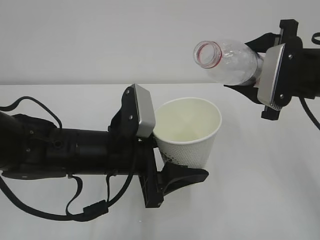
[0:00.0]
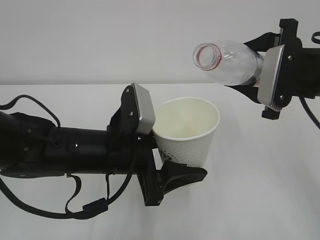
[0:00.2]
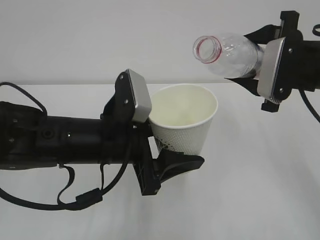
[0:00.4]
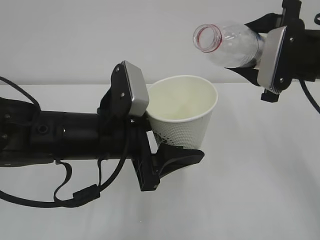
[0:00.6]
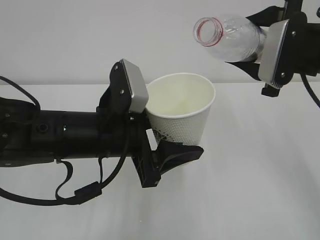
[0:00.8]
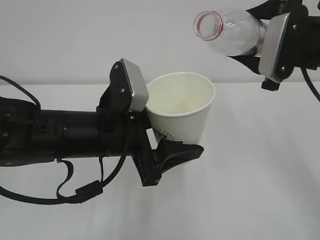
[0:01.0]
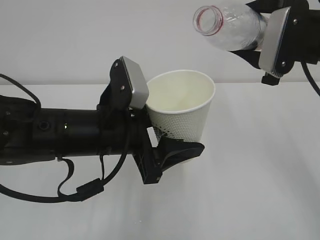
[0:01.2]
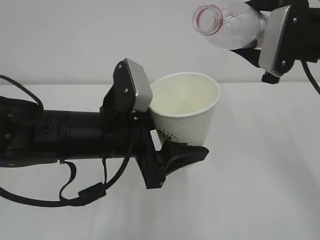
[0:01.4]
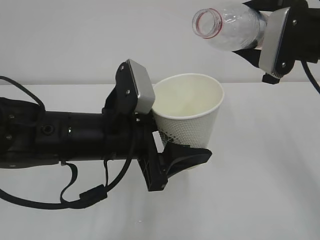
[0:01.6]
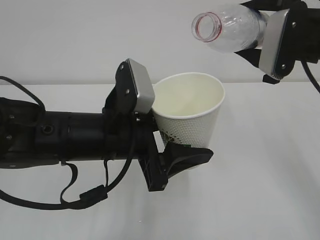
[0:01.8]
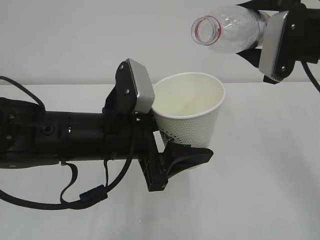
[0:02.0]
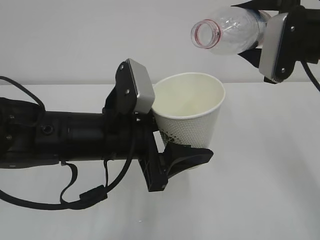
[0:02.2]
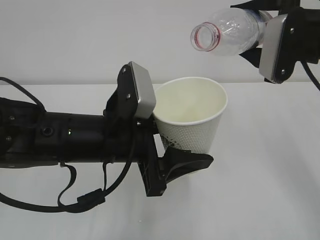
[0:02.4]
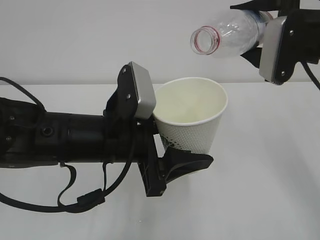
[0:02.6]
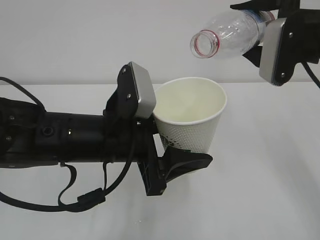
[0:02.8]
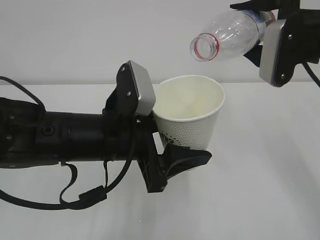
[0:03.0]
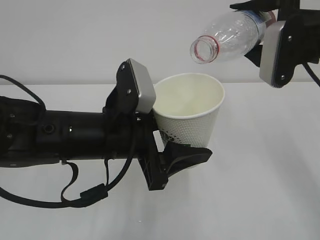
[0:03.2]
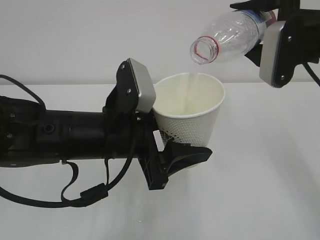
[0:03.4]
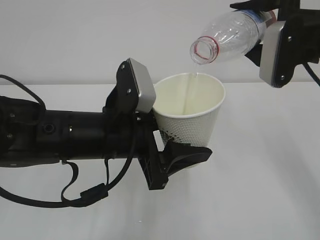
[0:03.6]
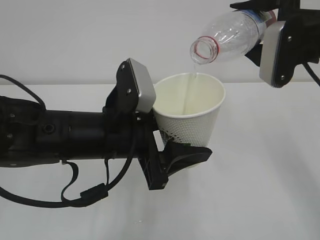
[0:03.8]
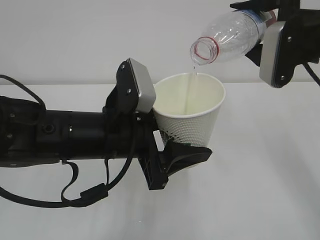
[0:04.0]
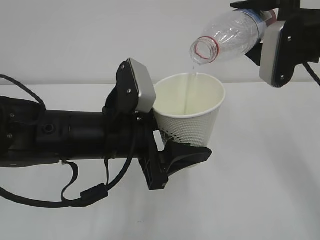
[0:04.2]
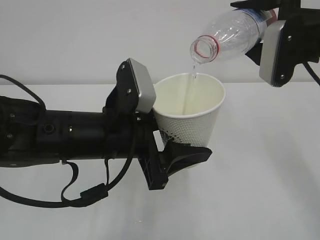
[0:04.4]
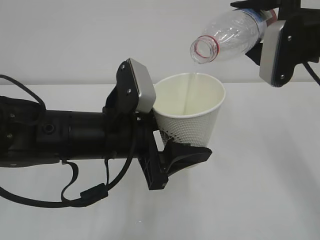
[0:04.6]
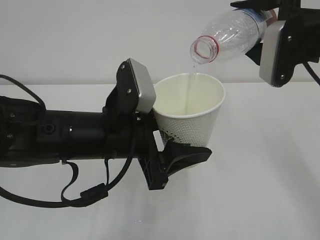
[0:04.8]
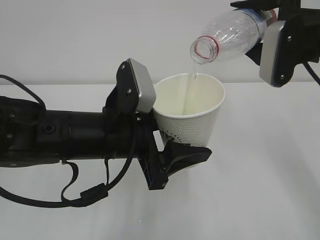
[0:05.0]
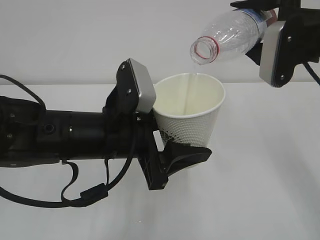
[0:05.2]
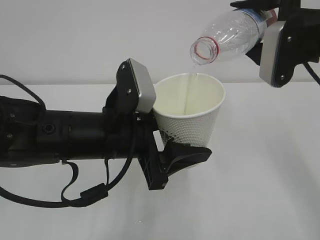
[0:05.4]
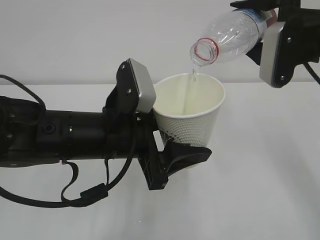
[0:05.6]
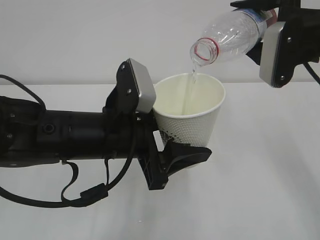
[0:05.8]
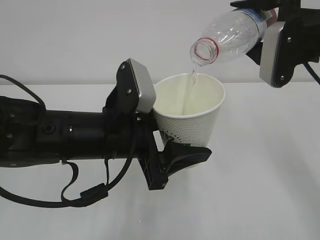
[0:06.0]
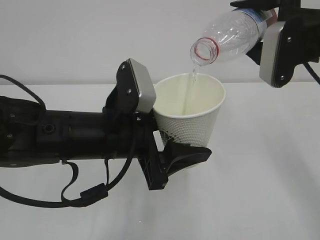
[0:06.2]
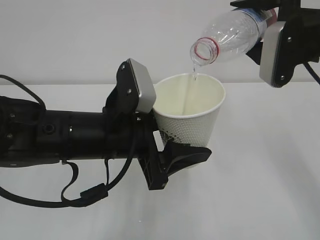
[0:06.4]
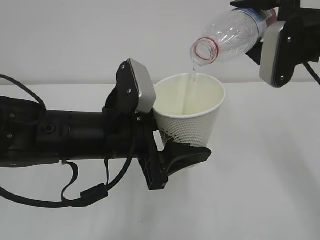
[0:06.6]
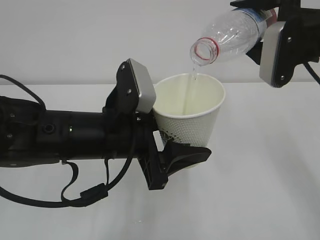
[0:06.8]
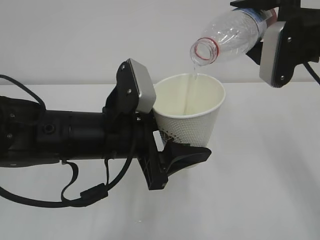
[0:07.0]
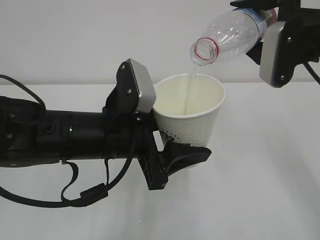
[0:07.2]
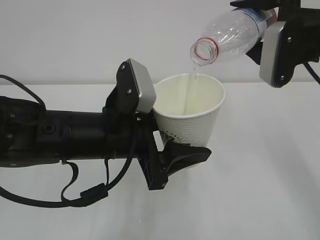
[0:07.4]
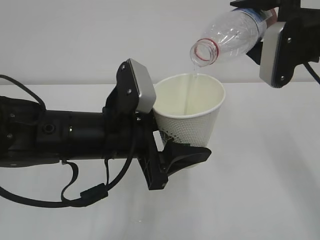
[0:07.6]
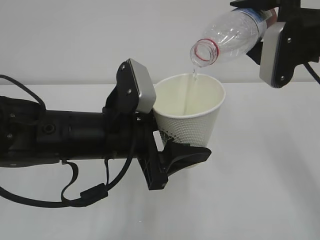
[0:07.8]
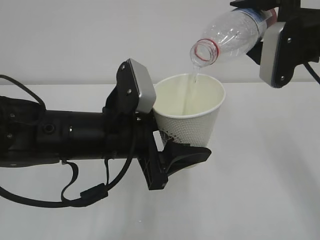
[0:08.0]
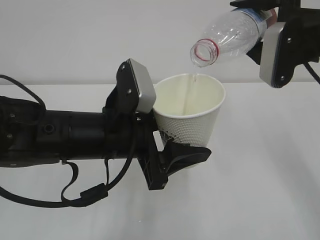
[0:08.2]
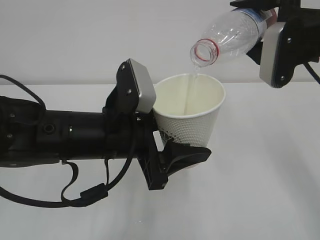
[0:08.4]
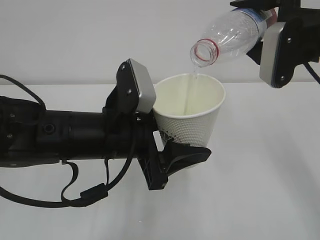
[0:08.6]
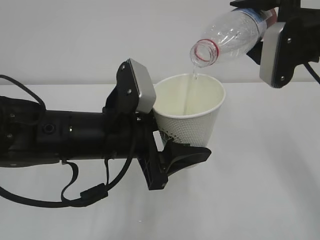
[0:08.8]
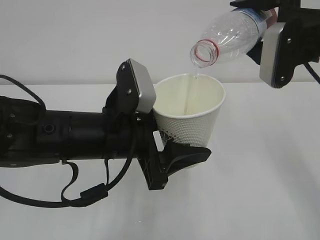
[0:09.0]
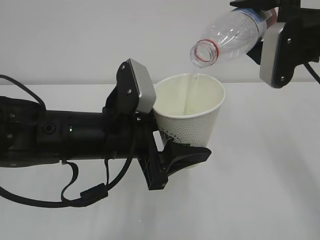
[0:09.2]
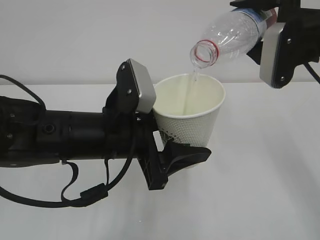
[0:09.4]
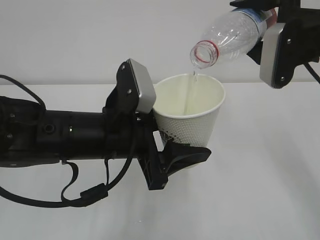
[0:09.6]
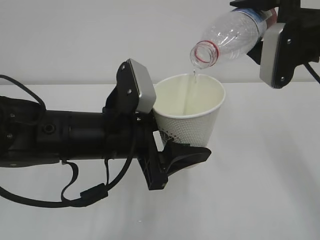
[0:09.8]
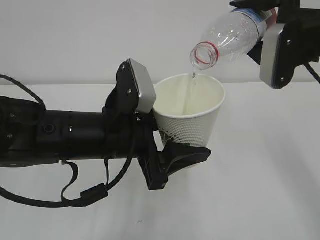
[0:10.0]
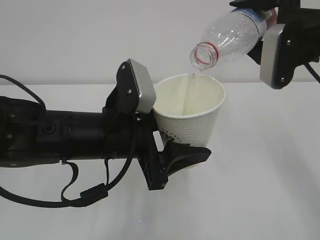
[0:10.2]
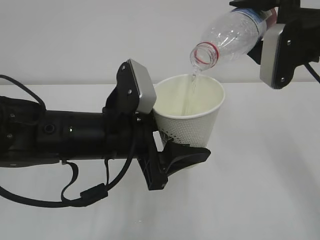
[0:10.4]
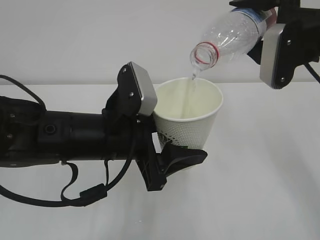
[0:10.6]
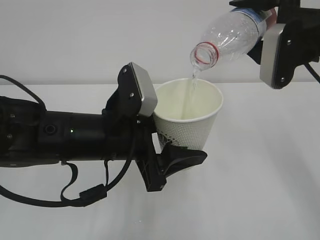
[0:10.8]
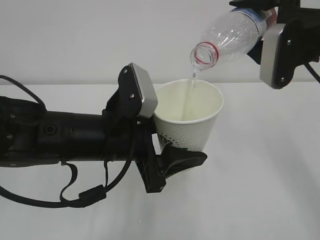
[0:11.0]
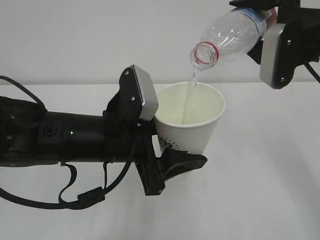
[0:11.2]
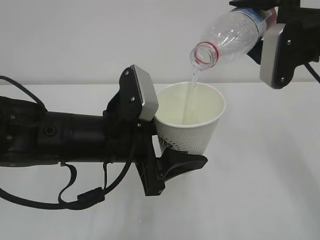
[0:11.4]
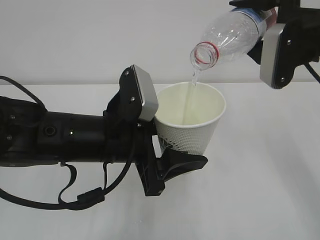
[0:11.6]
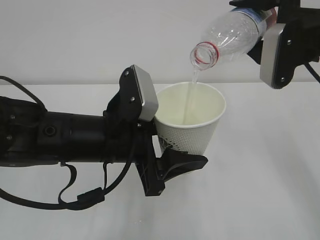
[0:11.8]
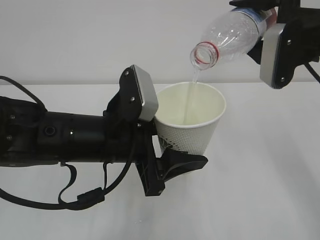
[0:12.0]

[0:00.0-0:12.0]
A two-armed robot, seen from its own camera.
0:00.0 to 0:01.6: The right gripper shifts by some 5 cm.
0:01.6 to 0:03.0: There are only small adjustments of the grippers.
0:03.0 to 0:09.0: The two grippers keep their place.
0:09.0 to 0:12.0: Both grippers stay about where they are.

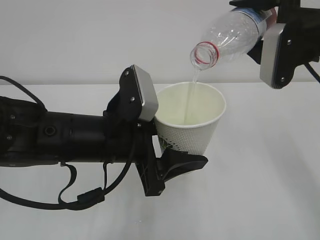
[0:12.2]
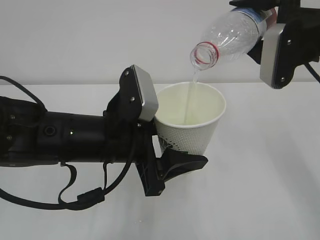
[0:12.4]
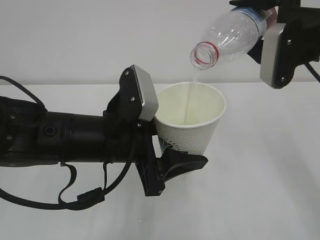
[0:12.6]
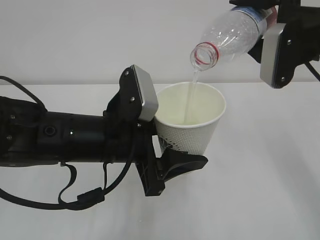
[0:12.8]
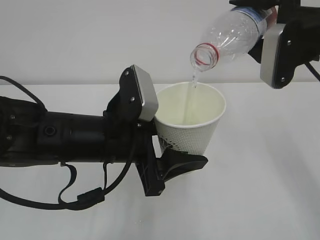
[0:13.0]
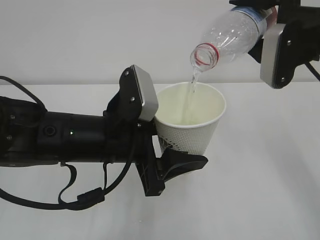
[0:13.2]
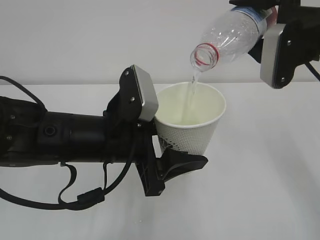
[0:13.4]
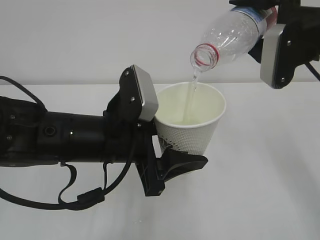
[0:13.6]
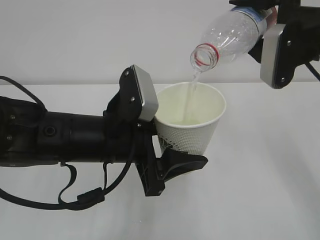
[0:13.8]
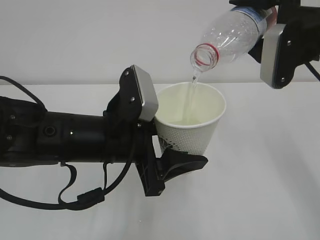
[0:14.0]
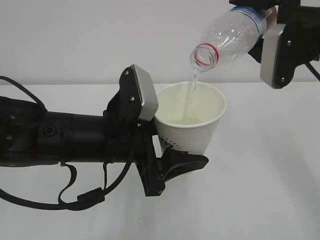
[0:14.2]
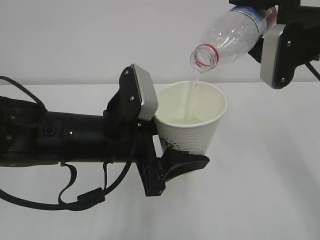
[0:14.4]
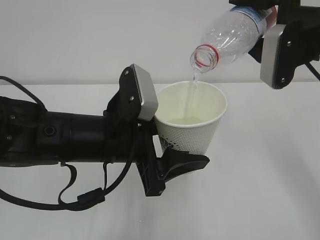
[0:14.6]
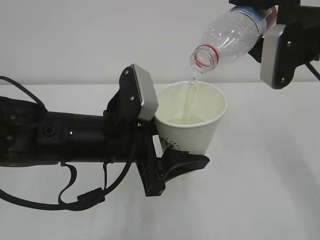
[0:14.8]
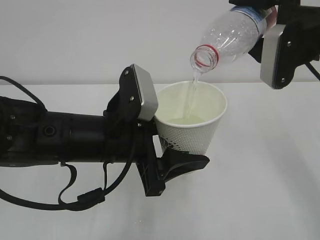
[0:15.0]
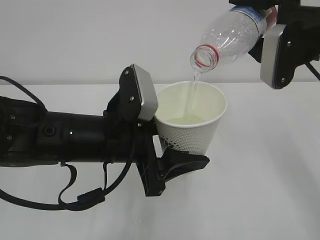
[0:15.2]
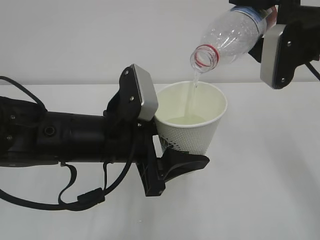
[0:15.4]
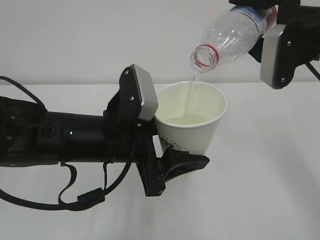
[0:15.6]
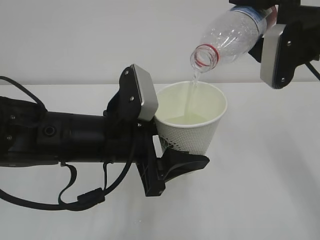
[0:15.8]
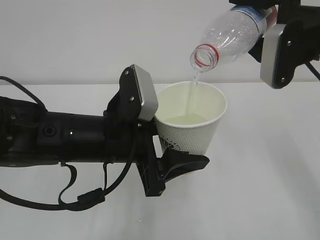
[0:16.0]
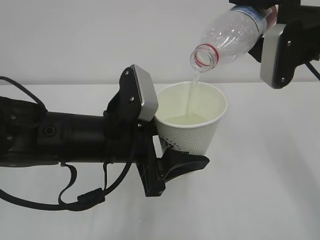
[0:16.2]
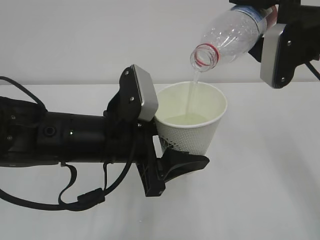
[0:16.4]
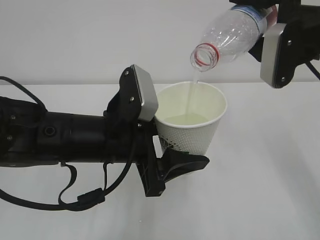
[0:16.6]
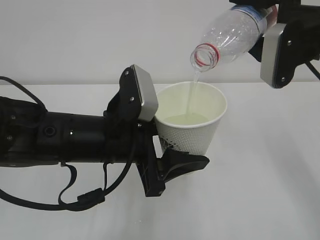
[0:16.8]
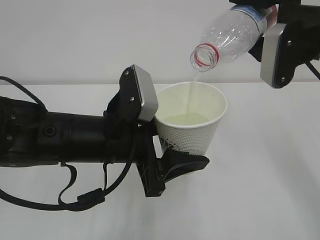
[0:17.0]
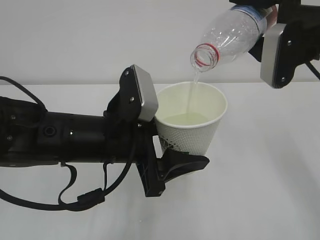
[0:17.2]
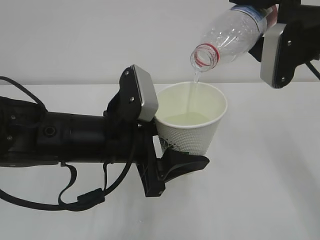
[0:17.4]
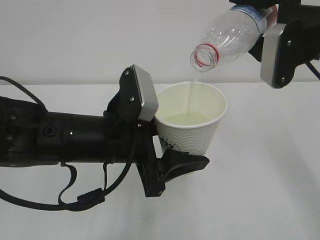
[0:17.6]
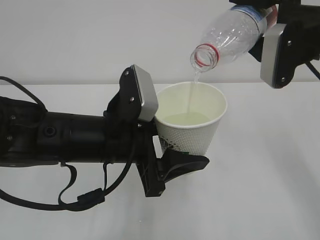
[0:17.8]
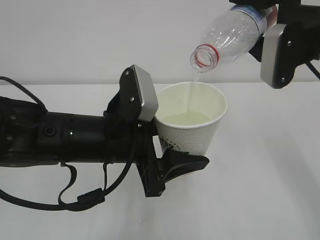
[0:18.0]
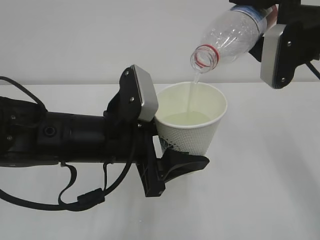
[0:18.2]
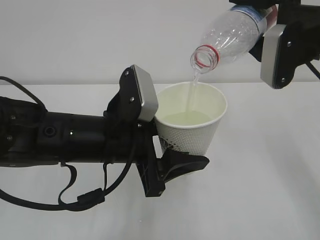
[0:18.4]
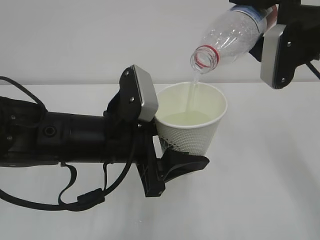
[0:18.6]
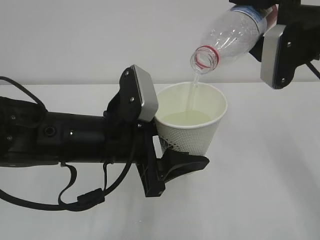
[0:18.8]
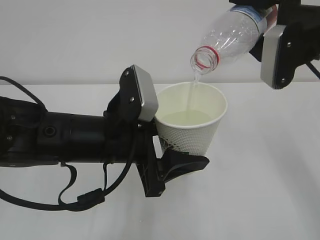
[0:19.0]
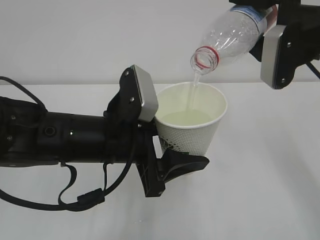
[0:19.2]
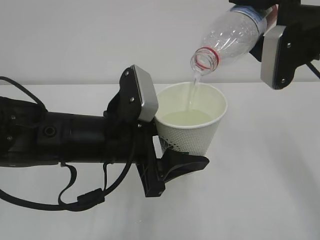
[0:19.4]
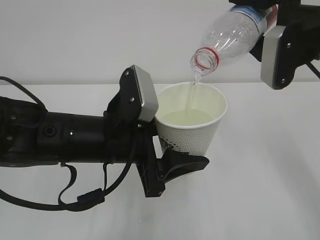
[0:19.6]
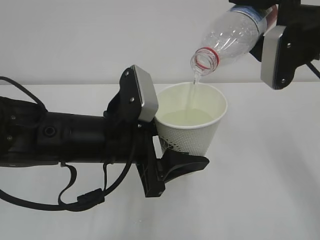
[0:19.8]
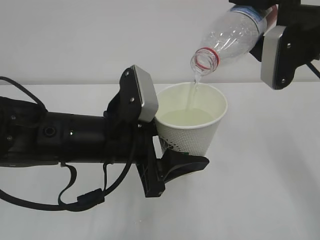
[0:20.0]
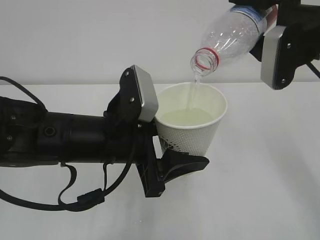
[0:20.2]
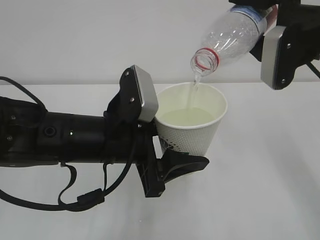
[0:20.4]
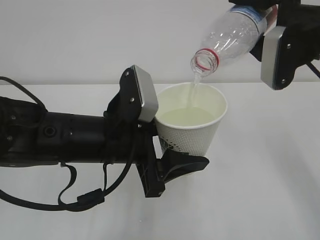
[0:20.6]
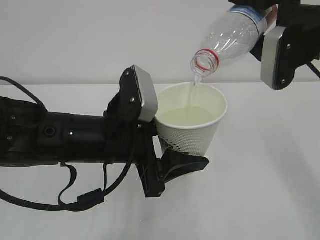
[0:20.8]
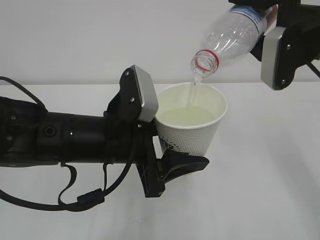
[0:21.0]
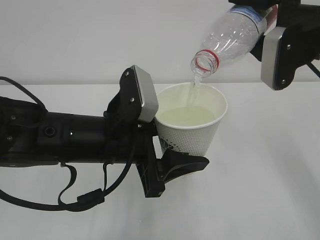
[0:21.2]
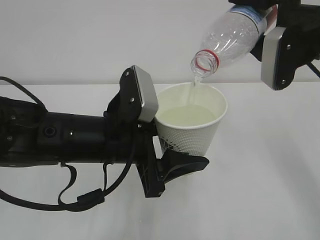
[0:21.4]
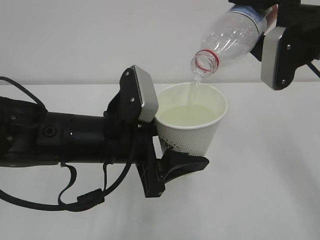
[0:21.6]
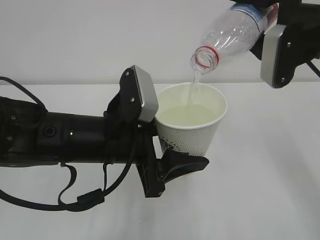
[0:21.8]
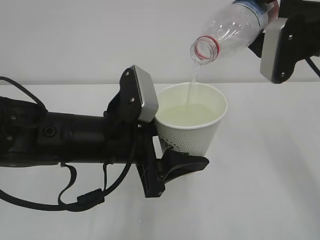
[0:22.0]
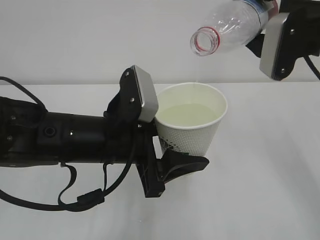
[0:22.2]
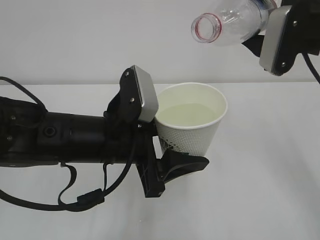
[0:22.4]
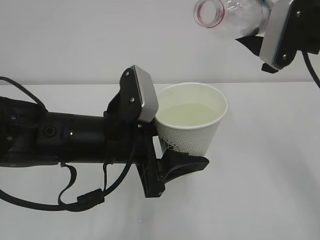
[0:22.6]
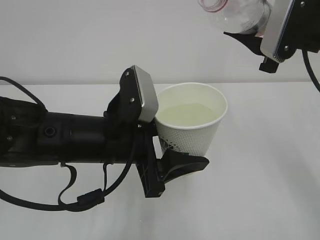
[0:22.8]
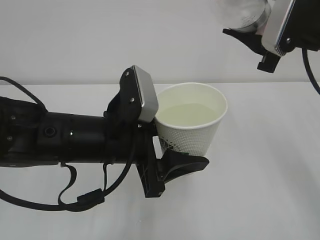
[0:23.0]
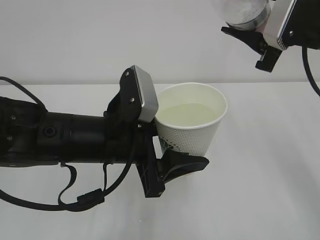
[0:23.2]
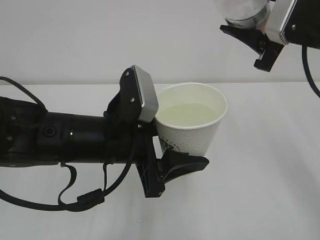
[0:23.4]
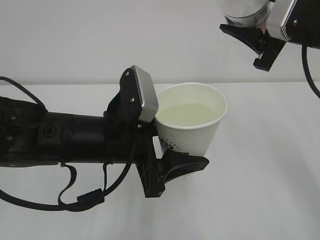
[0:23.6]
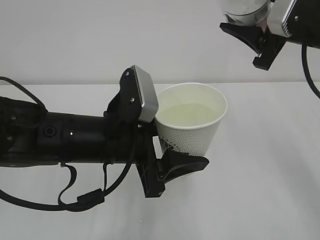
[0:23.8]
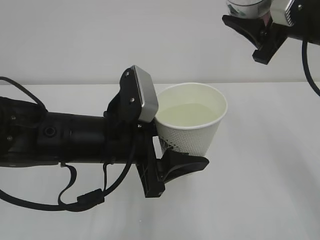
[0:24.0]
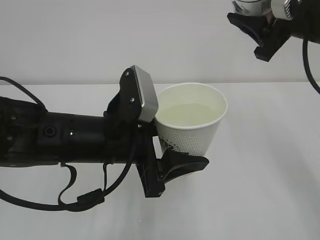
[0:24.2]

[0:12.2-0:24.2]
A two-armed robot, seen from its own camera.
0:12.2 to 0:19.8: The two grippers keep their place.
0:19.8 to 0:21.2: Both grippers stay put.
